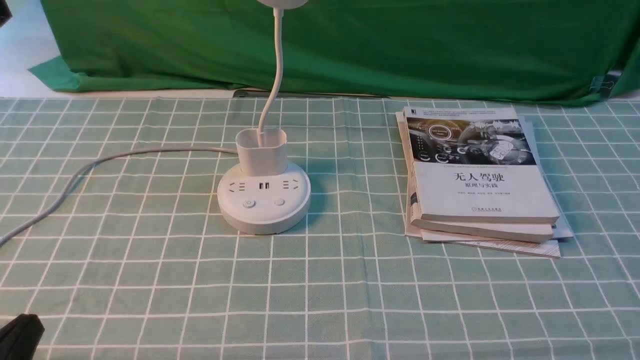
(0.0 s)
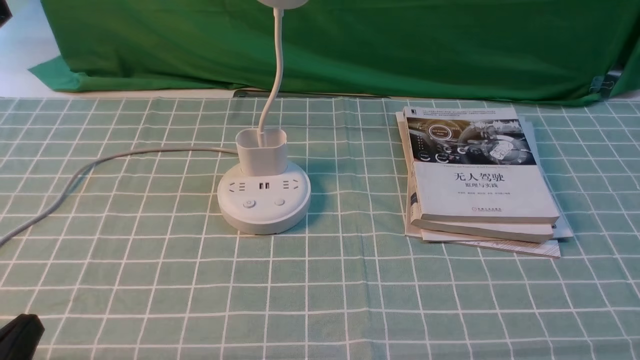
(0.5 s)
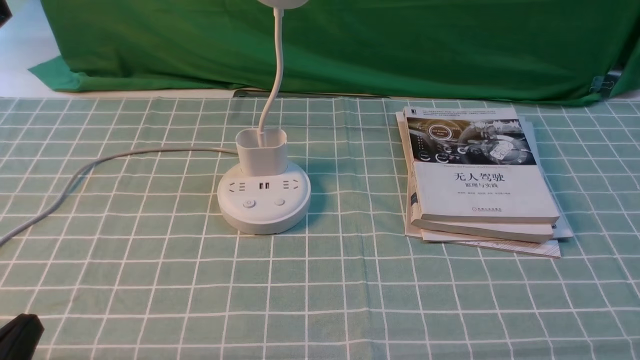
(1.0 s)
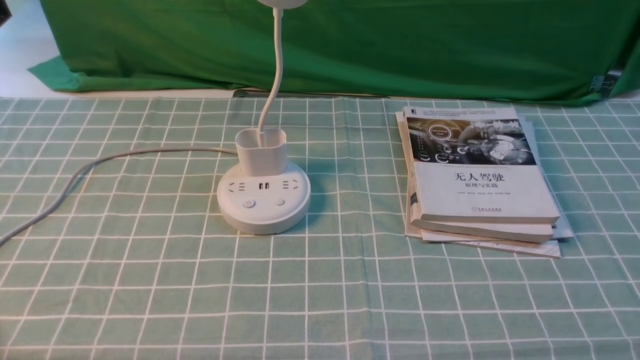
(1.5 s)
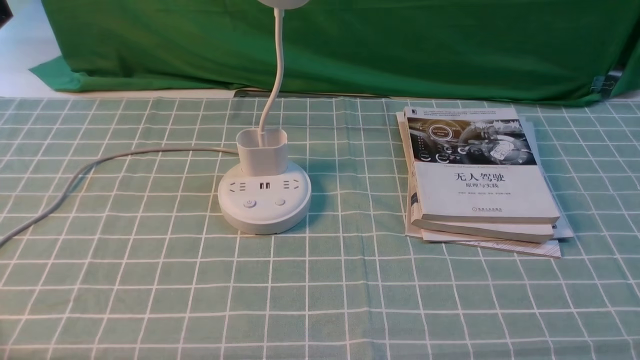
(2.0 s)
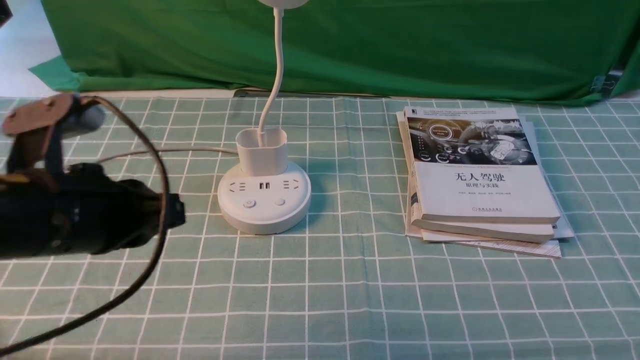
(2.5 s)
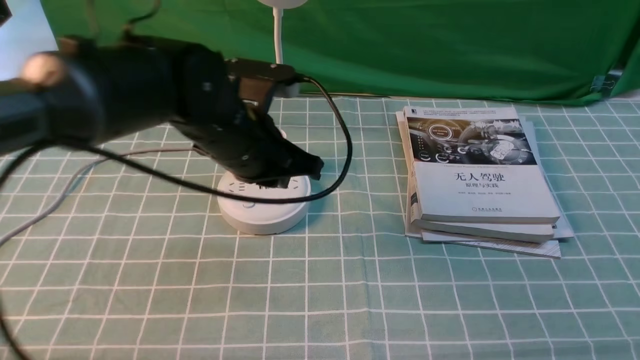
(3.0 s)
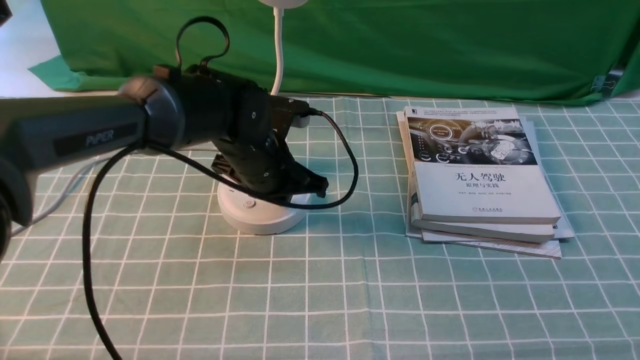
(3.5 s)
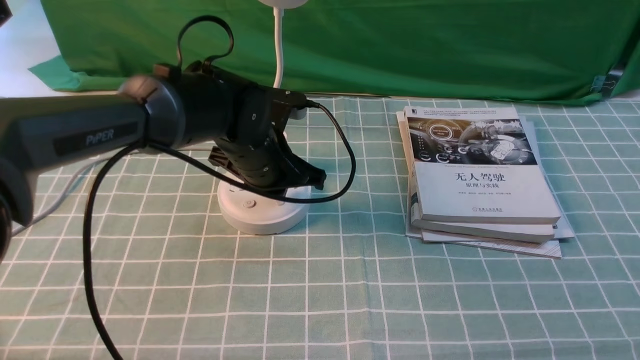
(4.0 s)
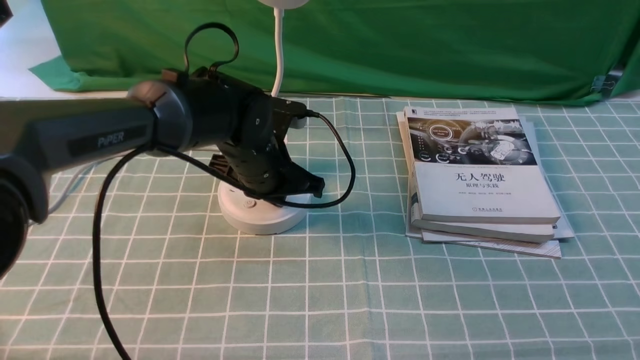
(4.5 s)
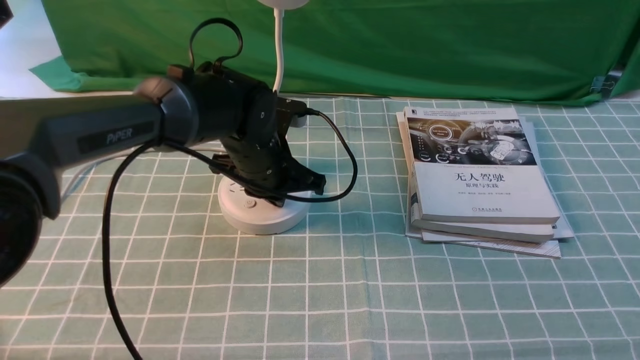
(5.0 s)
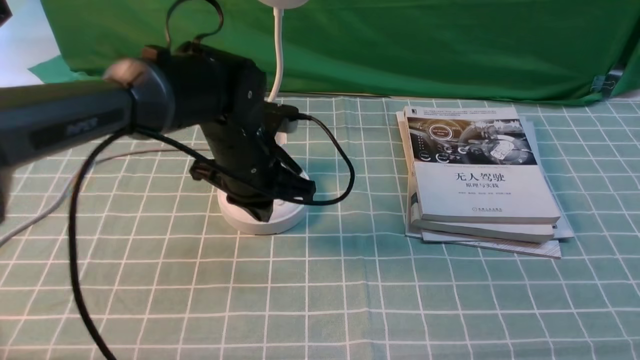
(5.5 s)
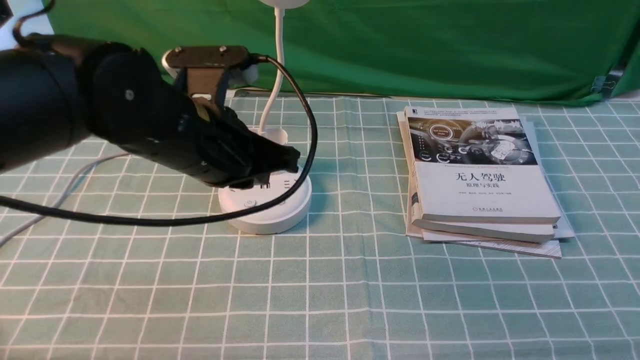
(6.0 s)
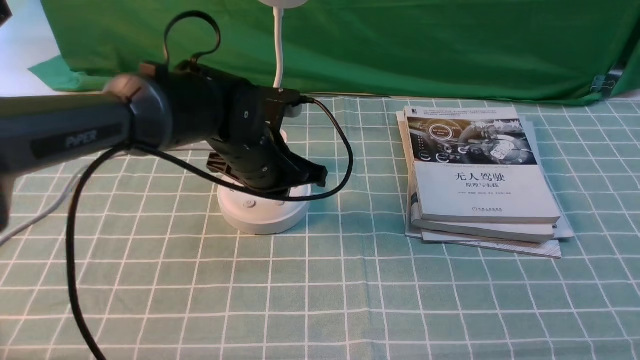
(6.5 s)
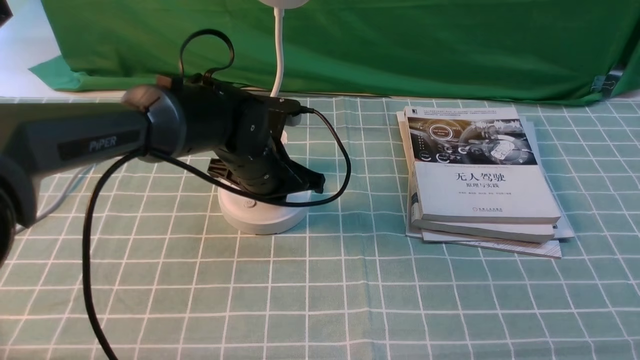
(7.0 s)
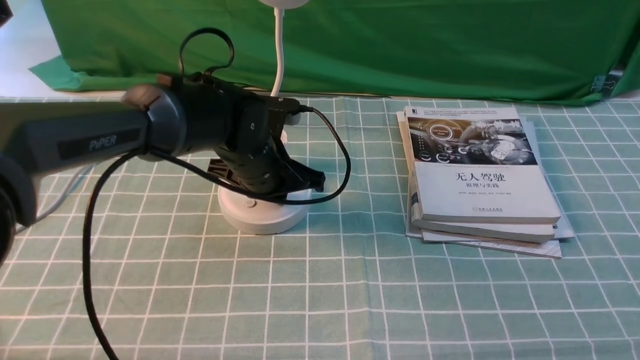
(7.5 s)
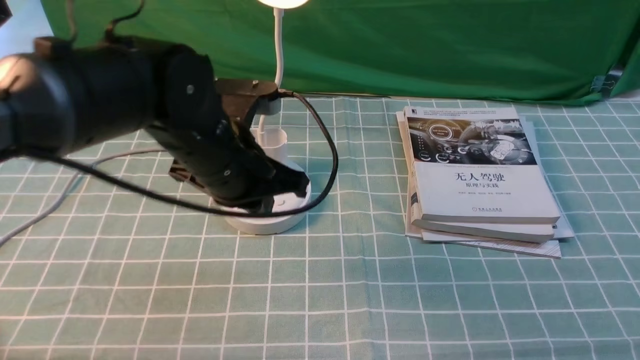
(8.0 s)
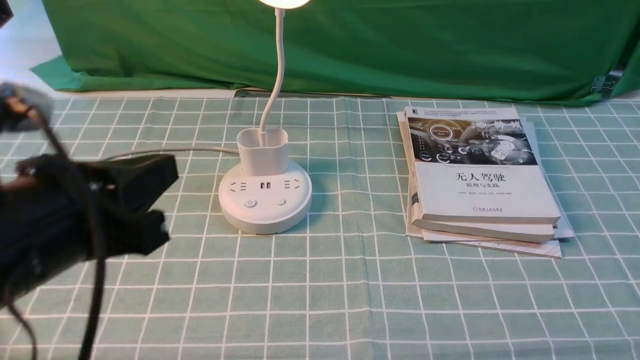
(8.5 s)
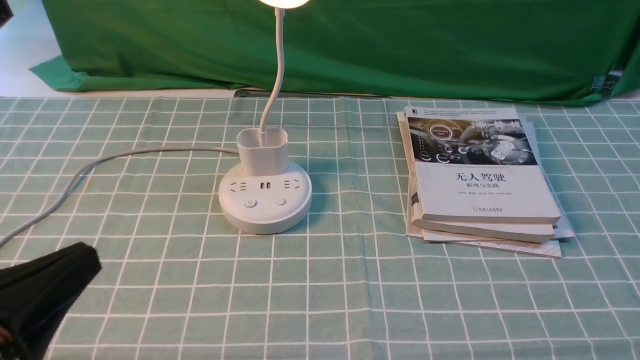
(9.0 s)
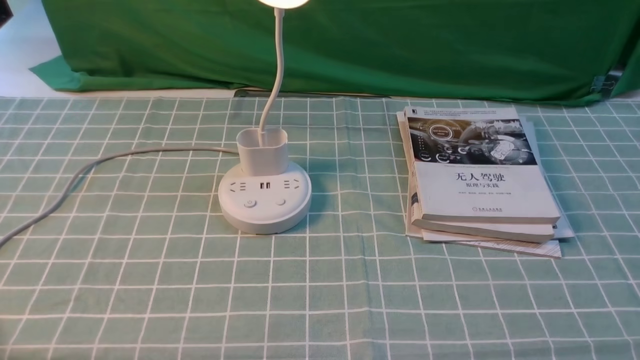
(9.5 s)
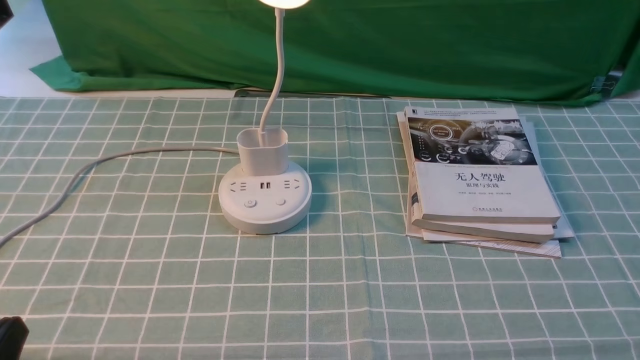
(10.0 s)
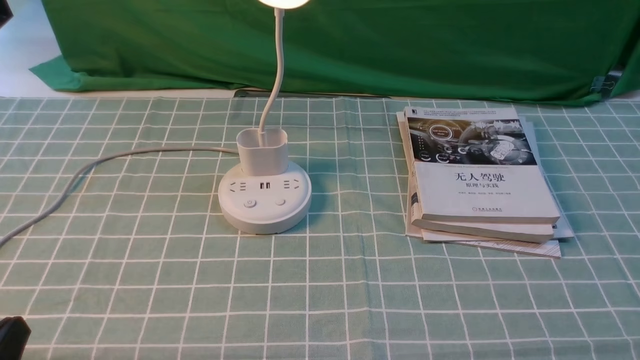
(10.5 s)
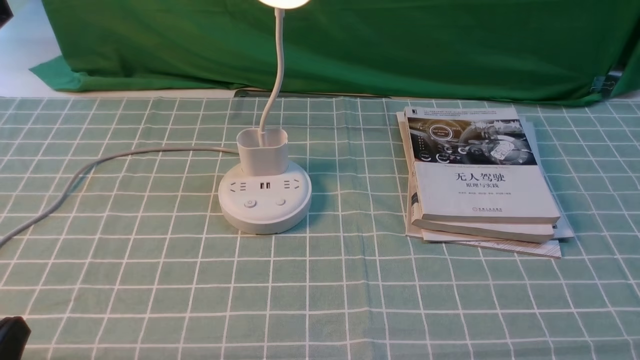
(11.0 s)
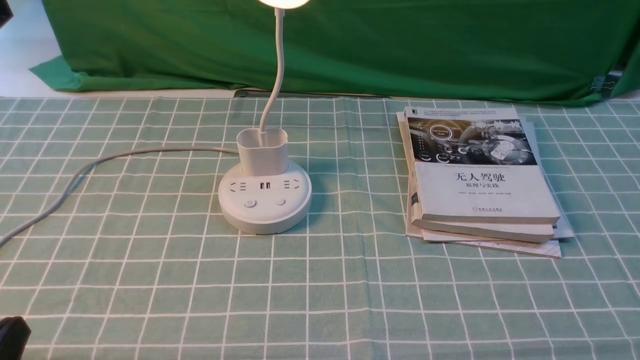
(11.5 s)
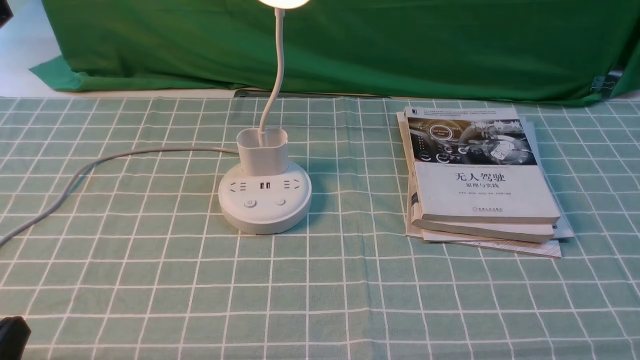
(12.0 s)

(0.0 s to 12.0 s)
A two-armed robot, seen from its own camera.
Step, 0.0 s - 7.5 s: use the left arm to press the button switch on the lamp holder.
2.0 s - 4.0 s: The left gripper is displaced forward, to the right and downward by approximately 40 cm.
4.0 s - 6.0 s: The left gripper shifts roughly 10 cm backward and upward.
6.0 s - 8.0 s: The left gripper travels downward and back again, some 10 cm each way.
8.0 s - 10.0 s: The left gripper goes some 30 cm backward and to the left.
10.0 s - 12.0 s: The two grippers keep their place.
